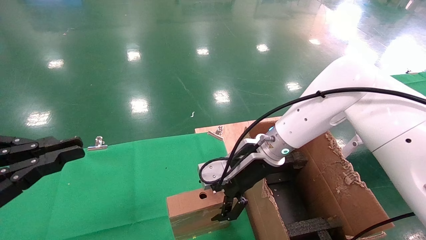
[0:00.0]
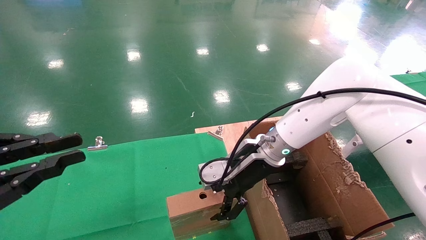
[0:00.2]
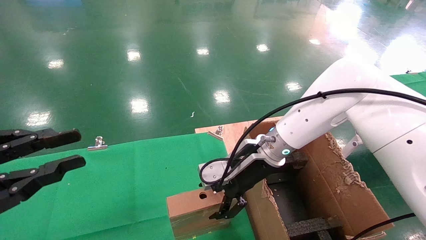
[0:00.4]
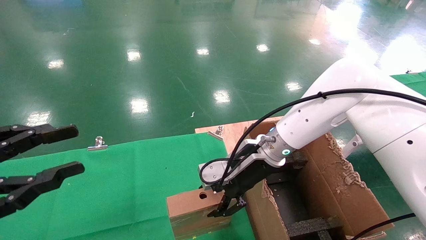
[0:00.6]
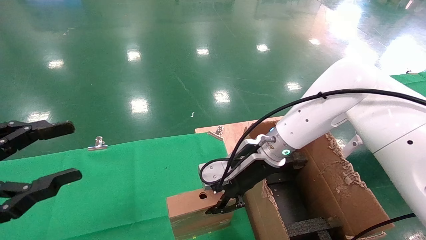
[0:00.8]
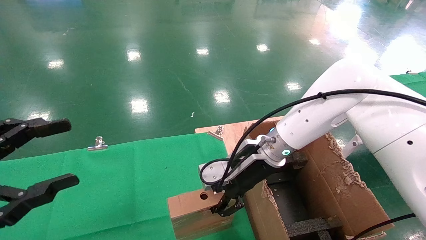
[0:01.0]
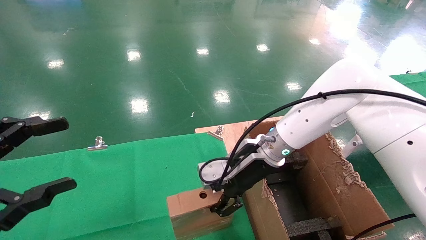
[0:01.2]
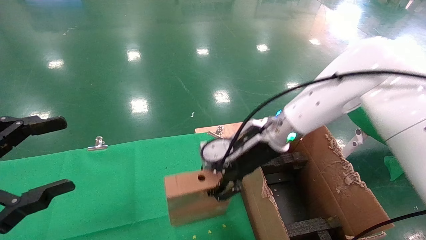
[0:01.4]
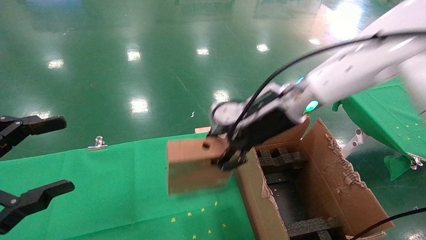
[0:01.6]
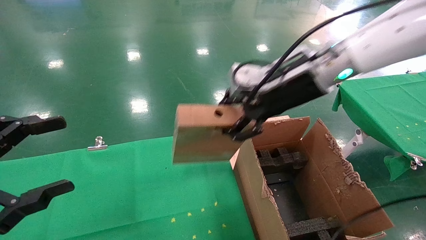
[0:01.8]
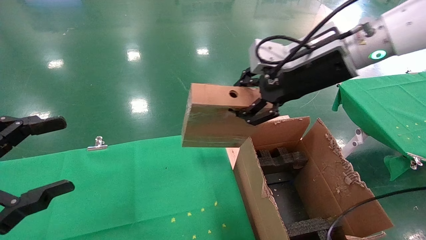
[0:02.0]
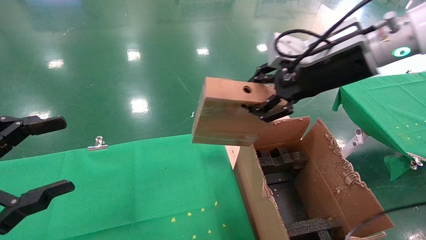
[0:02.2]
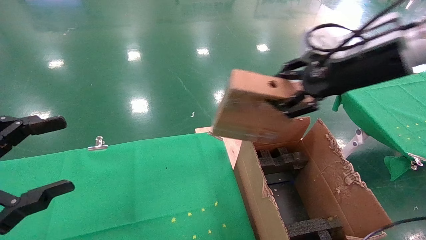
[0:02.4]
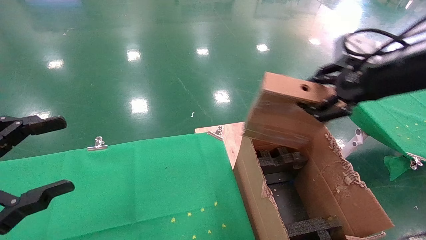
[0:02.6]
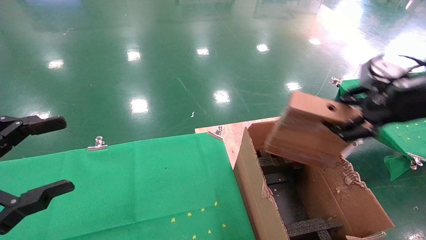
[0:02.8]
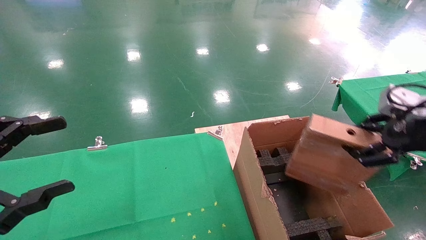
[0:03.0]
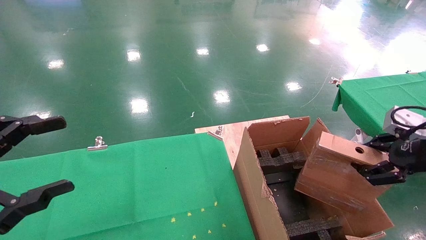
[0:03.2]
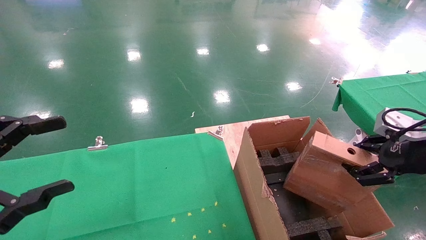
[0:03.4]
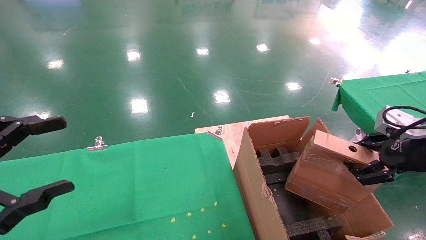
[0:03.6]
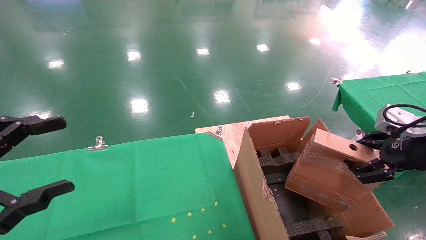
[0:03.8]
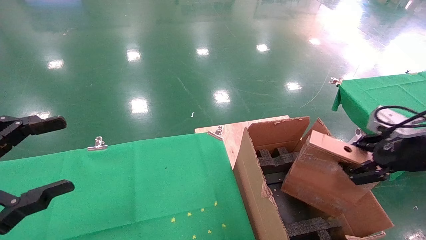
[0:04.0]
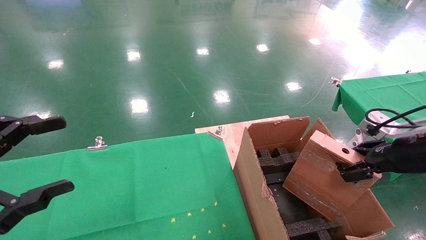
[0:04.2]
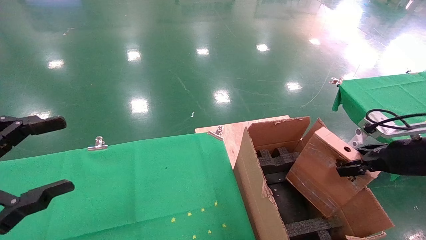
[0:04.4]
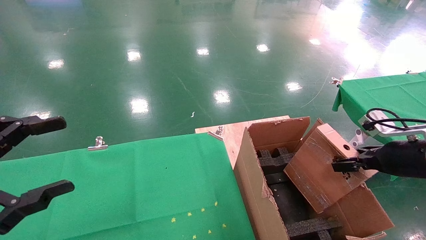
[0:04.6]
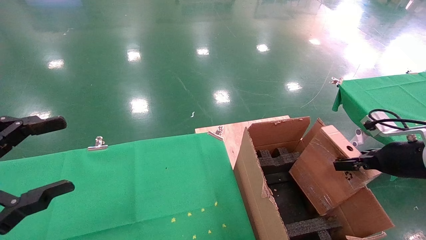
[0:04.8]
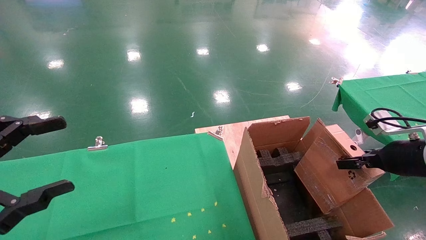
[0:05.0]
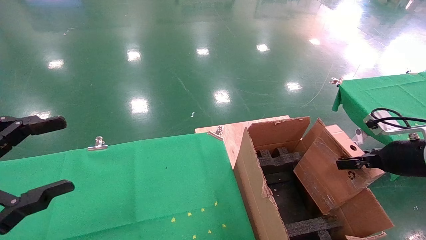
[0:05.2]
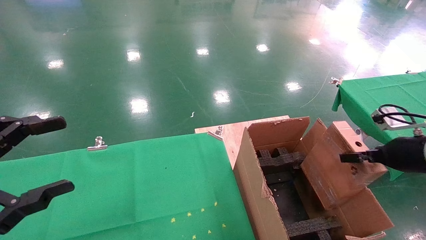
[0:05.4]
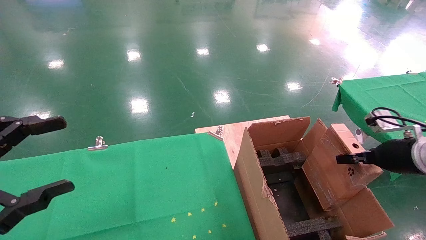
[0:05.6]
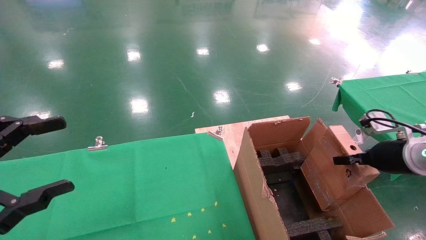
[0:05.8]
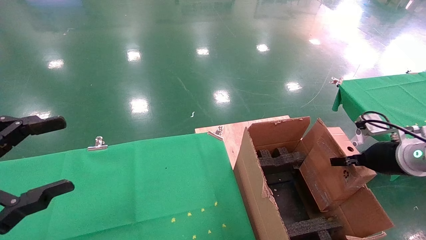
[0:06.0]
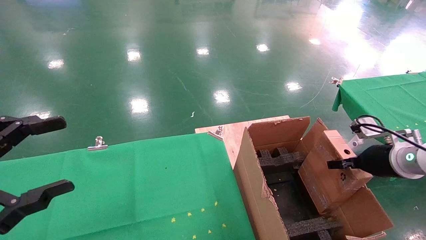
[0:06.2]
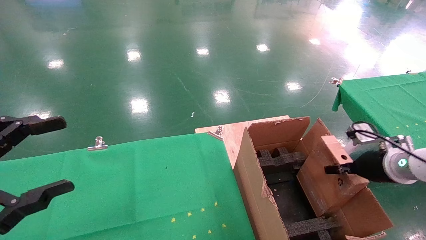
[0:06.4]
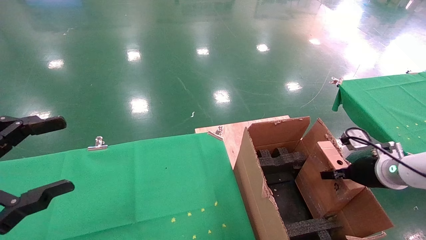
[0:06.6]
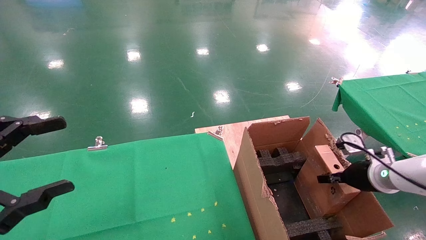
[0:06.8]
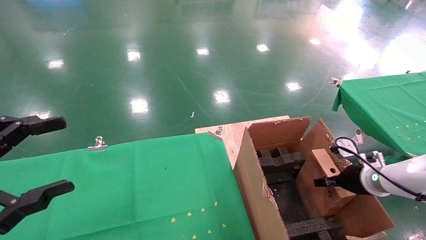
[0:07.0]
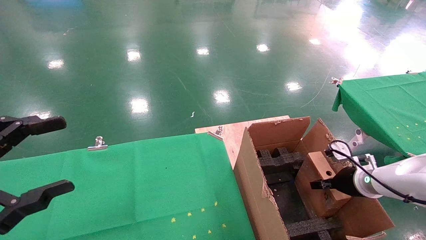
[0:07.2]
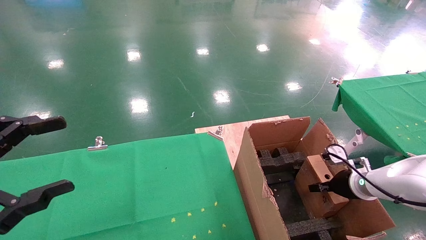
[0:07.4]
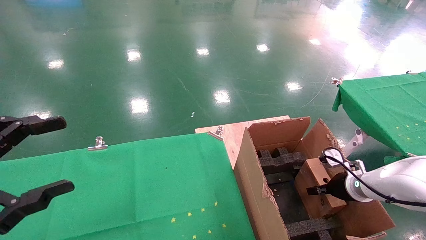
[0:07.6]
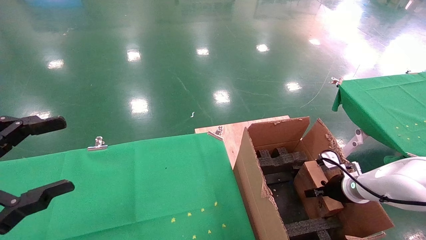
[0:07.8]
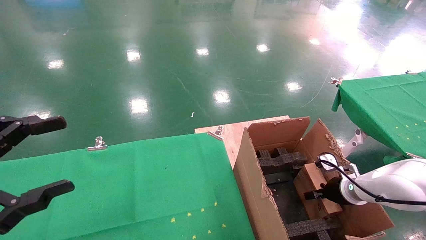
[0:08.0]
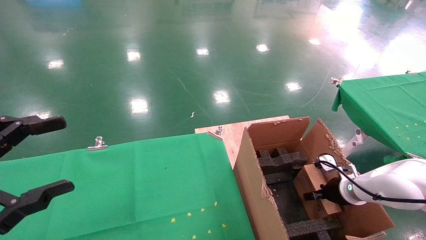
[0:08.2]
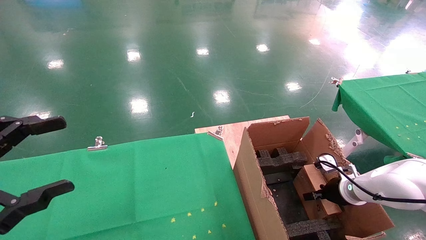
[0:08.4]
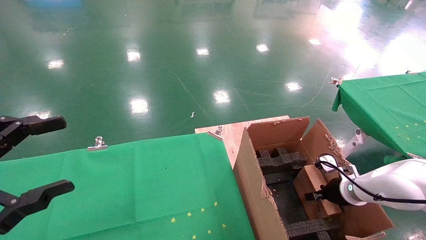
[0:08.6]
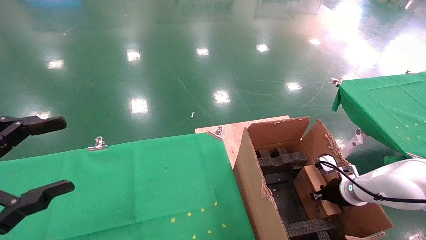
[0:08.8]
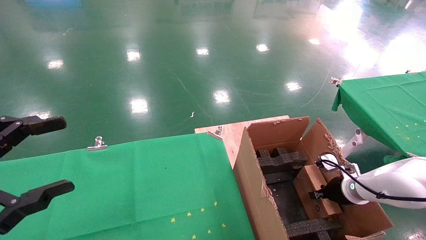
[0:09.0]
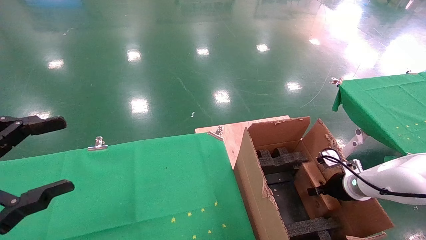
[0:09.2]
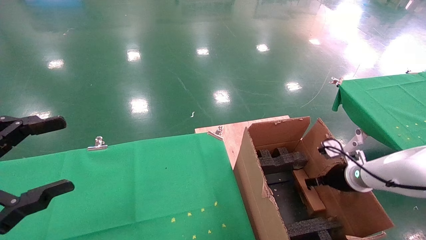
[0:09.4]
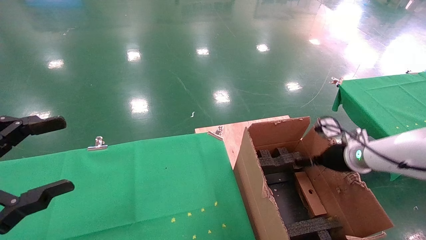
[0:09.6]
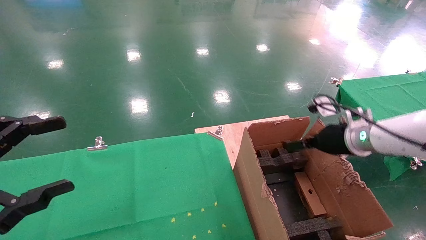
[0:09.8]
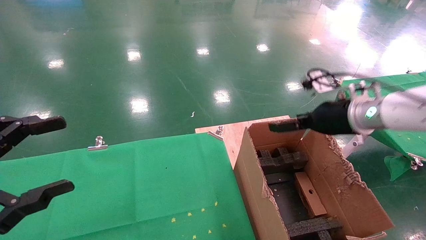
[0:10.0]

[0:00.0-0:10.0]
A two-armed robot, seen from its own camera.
Task of the whole recording: using a robotic arm to pick up a cardboard box and palace it the carton.
Step, 0:01.0 to 0:09.6: Place the mouse and the power cord paper box into the container.
0:00.0 to 0:01.4: The right gripper is displaced upward by some 5 cm, and closes its fingers, while the left gripper opens up.
0:01.4 to 0:02.8: The right gripper heads to the right and backward, covering some 25 cm.
0:02.8 to 0:04.2: The right gripper goes roughly 10 cm downward.
0:04.2 to 0:05.8: The right gripper moves about 5 cm.
0:05.8 to 0:07.2: The right gripper moves downward and forward, roughly 10 cm.
0:07.2 to 0:08.6: The right gripper ends up about 5 cm from where it was.
0:08.6 to 0:10.0: The right gripper travels upward by some 20 cm, and opens its fingers.

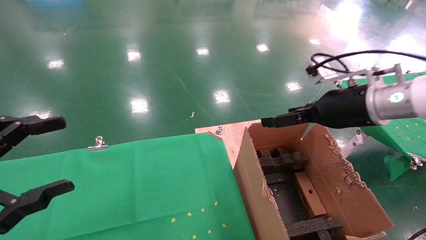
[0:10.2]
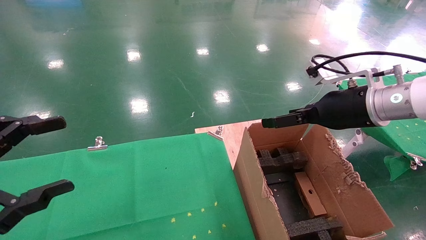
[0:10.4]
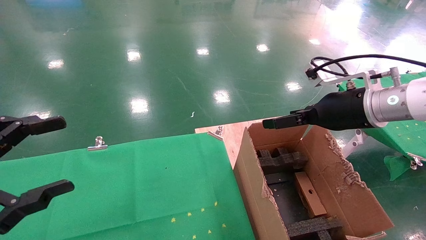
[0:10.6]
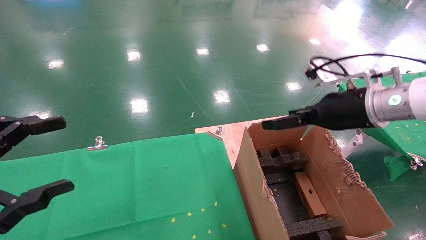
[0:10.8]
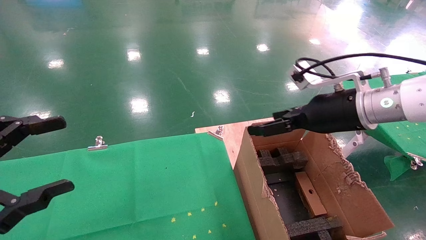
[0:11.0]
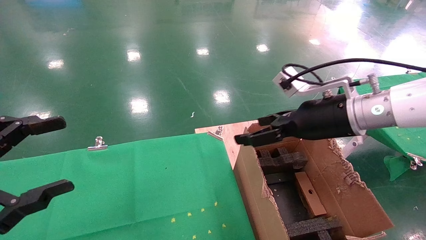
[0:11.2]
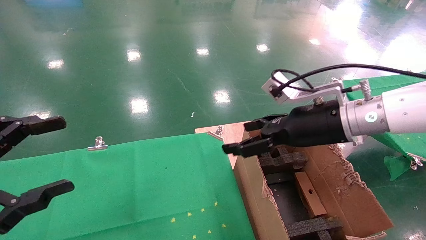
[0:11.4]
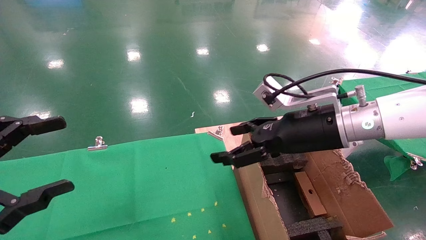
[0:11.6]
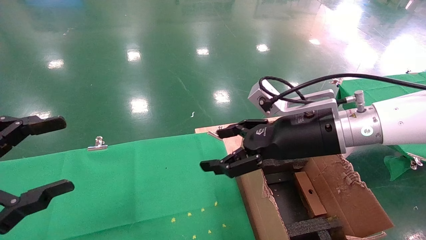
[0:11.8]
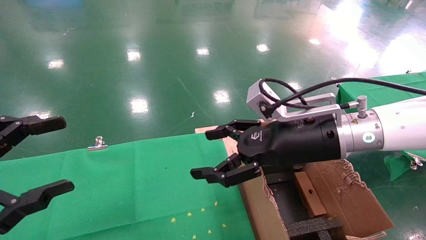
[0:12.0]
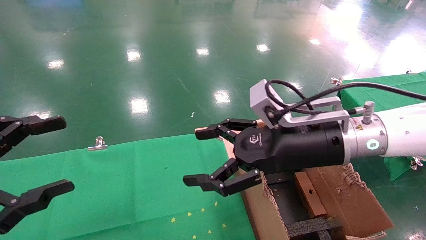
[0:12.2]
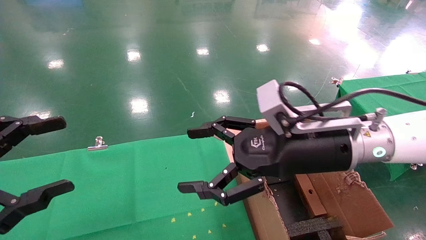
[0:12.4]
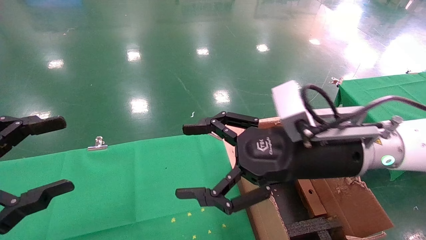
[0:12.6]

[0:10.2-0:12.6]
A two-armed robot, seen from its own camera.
Task of the whole recording: using a robotic arm to pick up a cardboard box and palace it the carton.
0:10.2 to 0:11.4: The right gripper heads to the left, covering some 5 cm.
0:11.4 to 0:12.6: The right gripper is displaced backward by roughly 5 cm.
